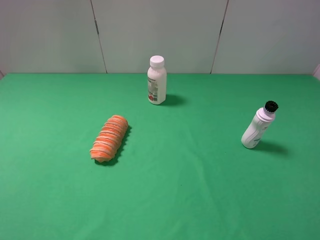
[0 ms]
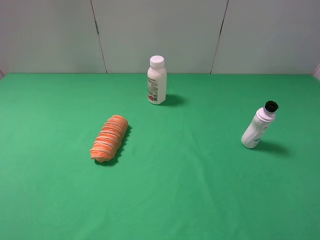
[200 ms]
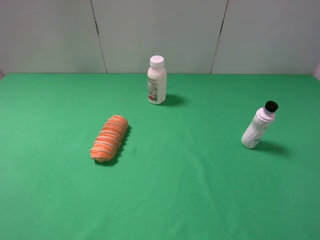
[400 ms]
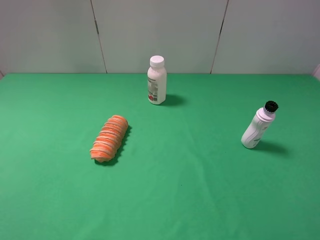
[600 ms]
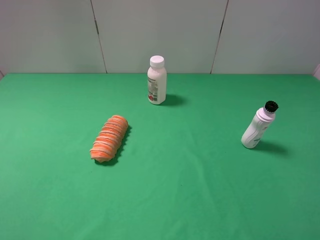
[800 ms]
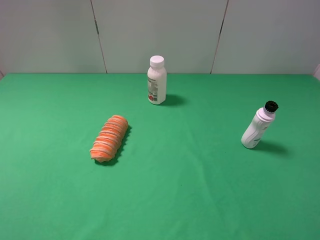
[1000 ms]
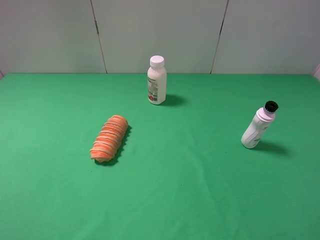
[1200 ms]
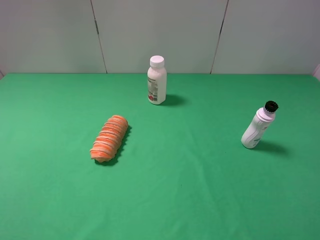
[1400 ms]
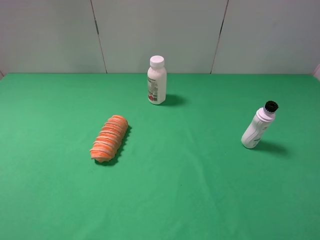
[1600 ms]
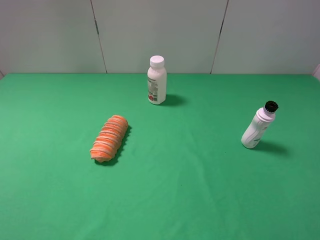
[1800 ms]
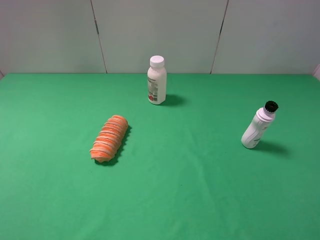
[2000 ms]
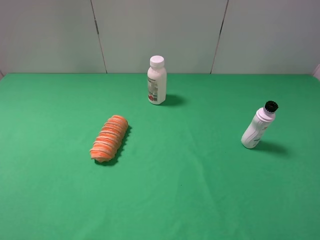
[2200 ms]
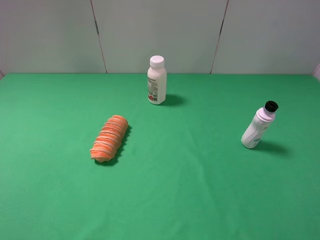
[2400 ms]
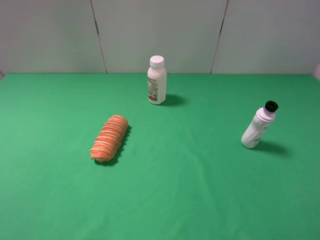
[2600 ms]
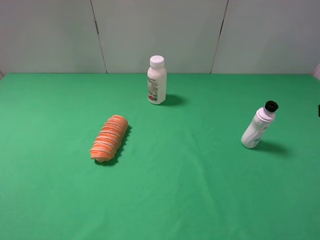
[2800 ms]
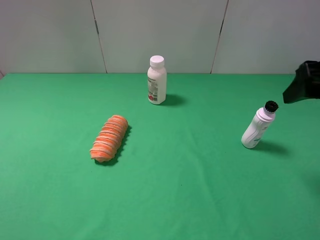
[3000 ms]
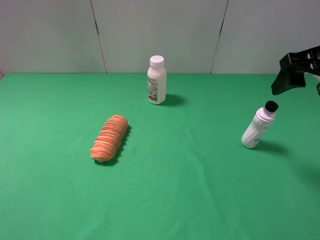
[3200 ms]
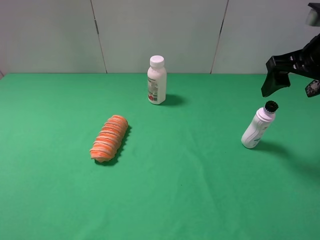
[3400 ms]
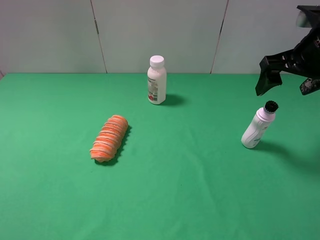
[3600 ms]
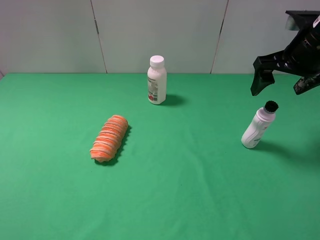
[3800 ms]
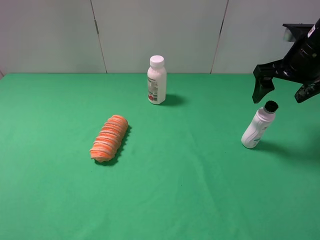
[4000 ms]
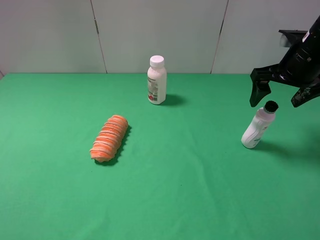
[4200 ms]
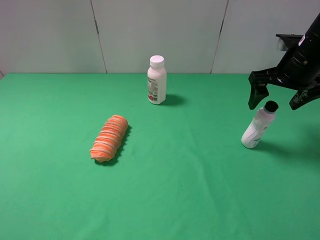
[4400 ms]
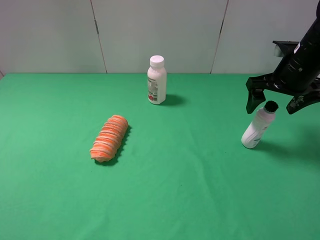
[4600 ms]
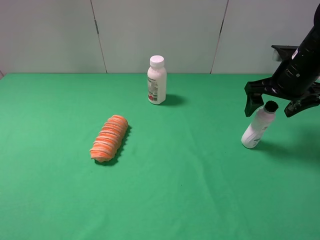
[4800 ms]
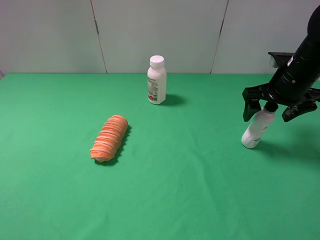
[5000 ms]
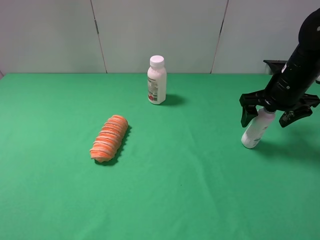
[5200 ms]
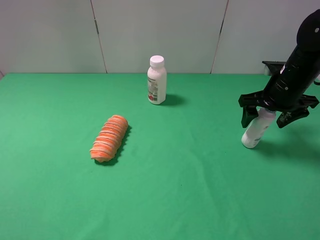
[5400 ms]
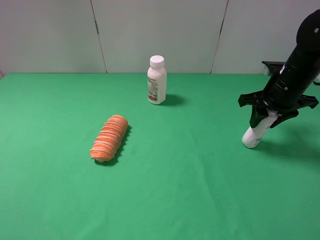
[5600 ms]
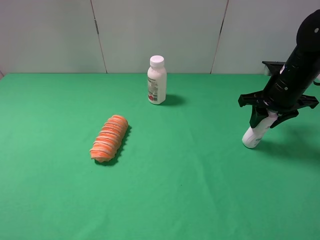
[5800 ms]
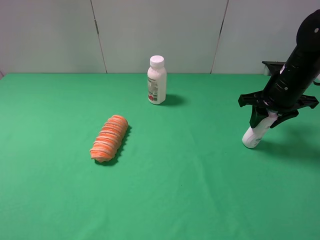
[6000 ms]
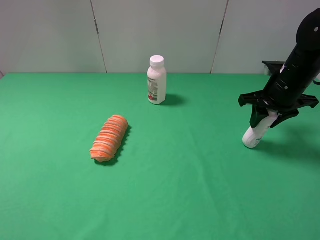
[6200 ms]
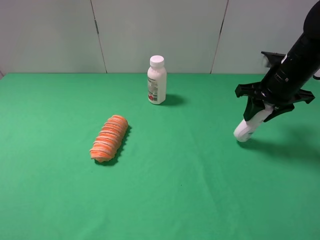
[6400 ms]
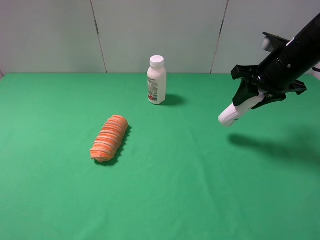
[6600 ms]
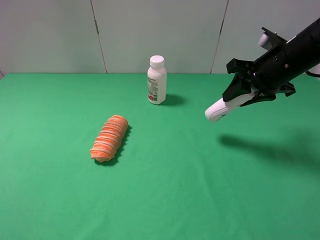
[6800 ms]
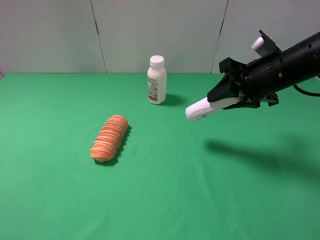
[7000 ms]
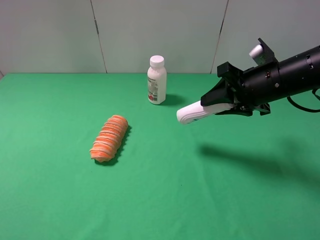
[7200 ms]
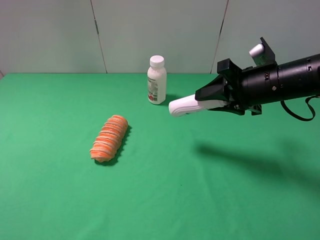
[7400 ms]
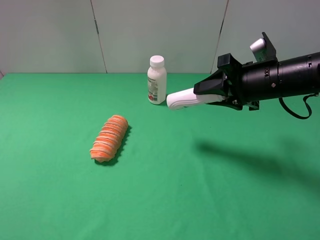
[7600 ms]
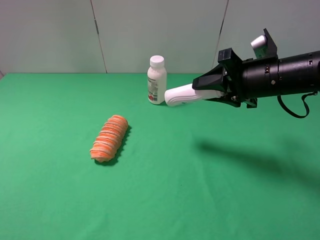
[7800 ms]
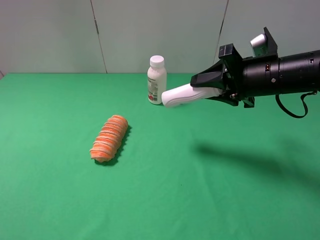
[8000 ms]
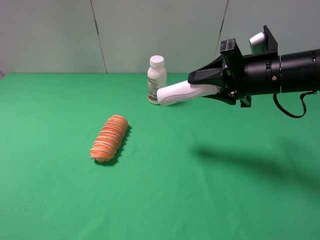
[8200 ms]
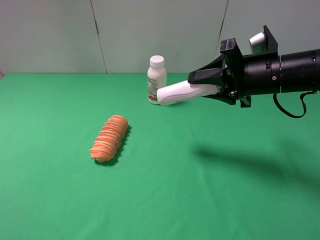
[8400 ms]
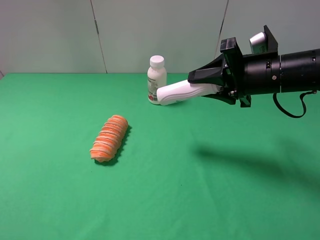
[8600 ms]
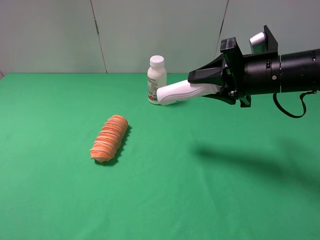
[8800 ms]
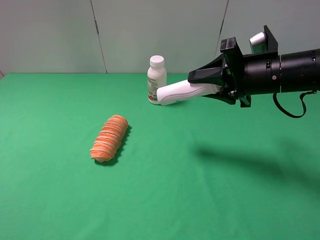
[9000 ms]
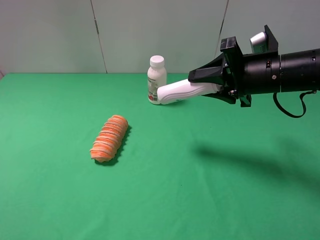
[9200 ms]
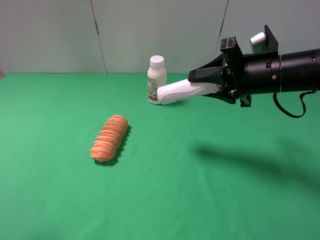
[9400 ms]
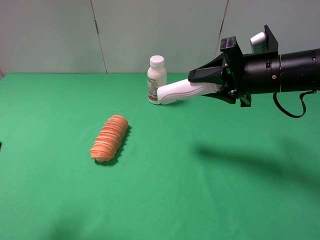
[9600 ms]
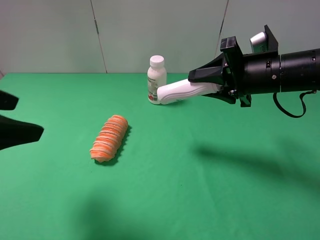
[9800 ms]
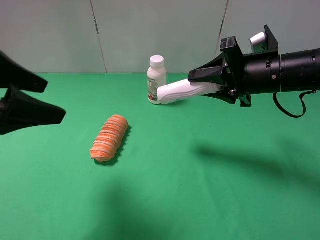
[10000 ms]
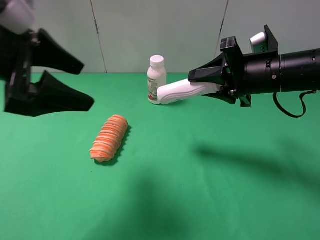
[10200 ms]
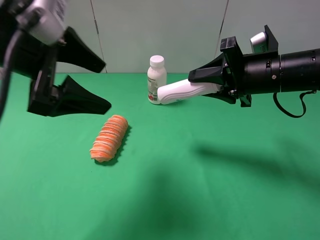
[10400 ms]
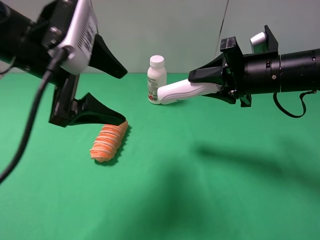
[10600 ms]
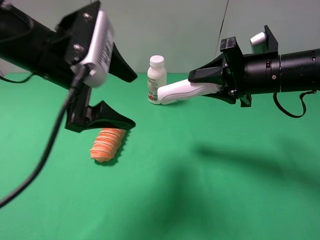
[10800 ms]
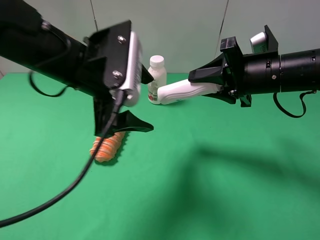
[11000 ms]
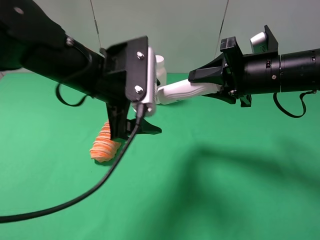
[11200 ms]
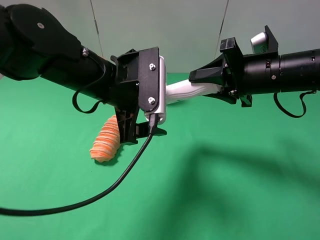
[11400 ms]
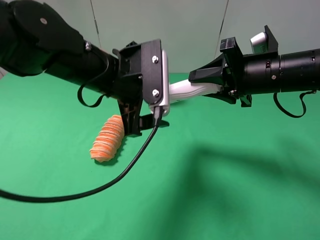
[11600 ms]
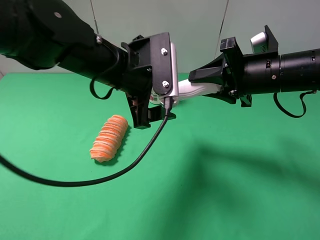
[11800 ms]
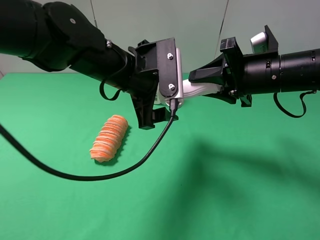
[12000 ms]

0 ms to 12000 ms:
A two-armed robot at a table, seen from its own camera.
Task of the whole recording: use the right gripper to pick up the item and transfer it from the right gripper to the left gripper.
Step, 0 ms to 5600 ms: Use the right gripper to grab the shampoo on the right side of the table.
0 ms to 1600 ms: Neither gripper changes place.
1600 ms to 3000 ms: The right gripper is displaced forward by roughly 20 cm.
3000 ms to 4400 ms: The right gripper moves forward and downward, approximately 15 cm.
4400 ms to 6000 ms: The right gripper shifts approximately 5 cm downward, and closes its fingers.
6000 ms to 7600 ms: The right gripper goes roughly 10 cm to the left and backward.
7600 ms to 9000 ms: The grippers stay close to where they were, moving slightly.
9000 ms to 10400 ms: The left gripper goes some 25 cm forward and to the right.
10400 ms to 12000 ms: The left gripper moves to the right, downward and forward, approximately 15 cm.

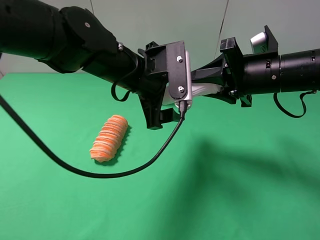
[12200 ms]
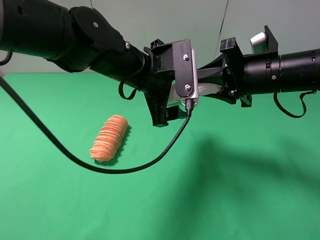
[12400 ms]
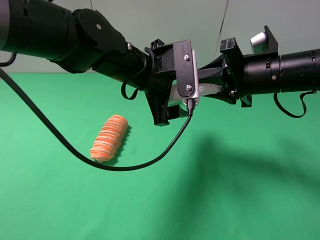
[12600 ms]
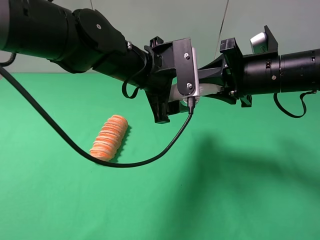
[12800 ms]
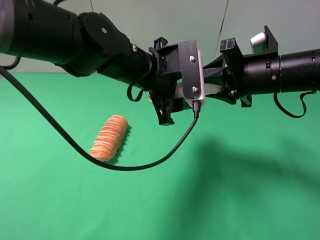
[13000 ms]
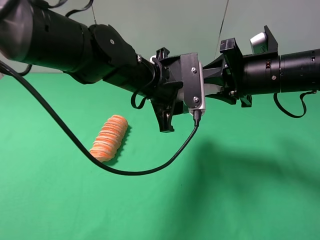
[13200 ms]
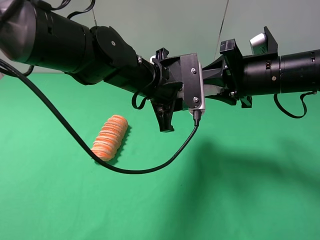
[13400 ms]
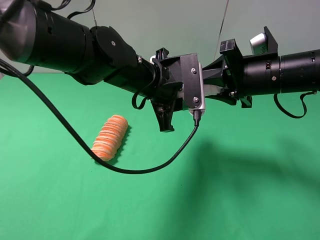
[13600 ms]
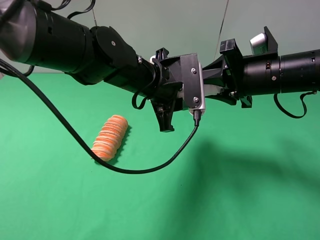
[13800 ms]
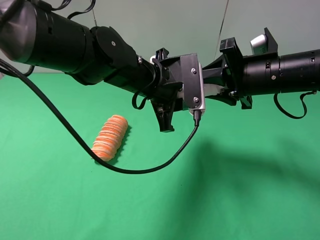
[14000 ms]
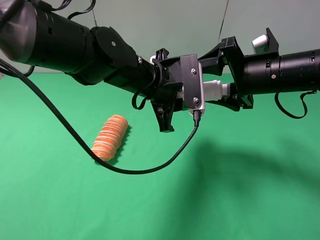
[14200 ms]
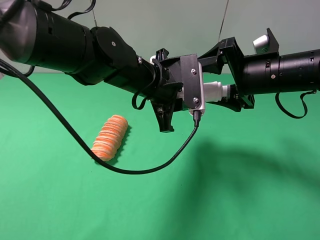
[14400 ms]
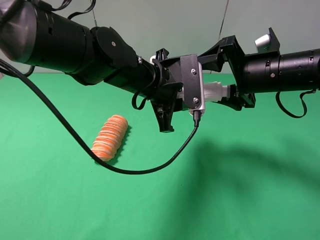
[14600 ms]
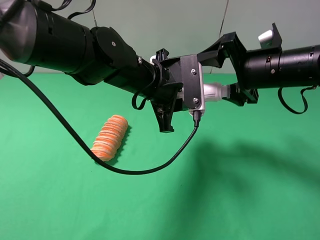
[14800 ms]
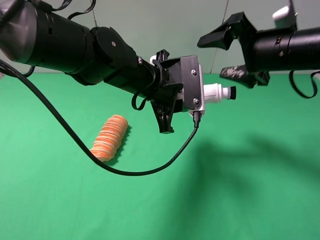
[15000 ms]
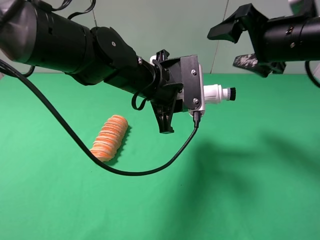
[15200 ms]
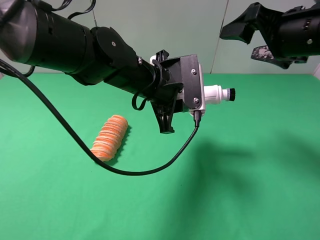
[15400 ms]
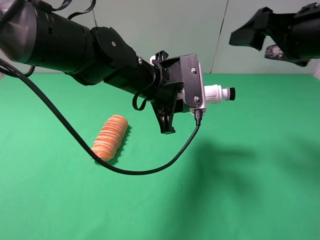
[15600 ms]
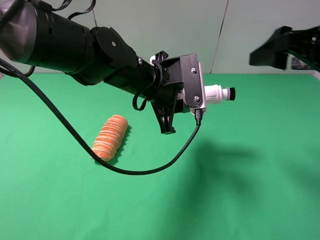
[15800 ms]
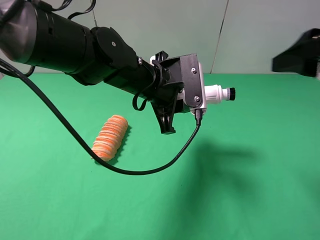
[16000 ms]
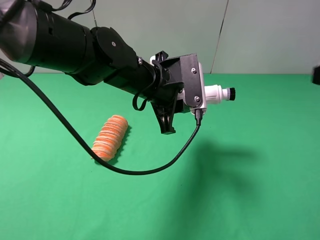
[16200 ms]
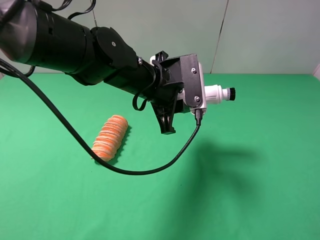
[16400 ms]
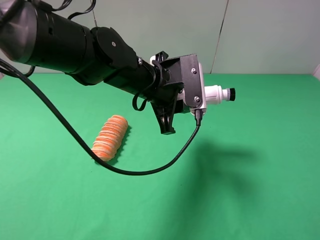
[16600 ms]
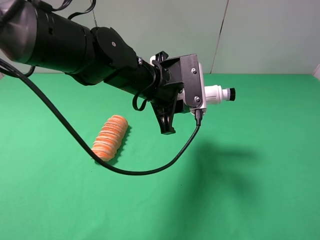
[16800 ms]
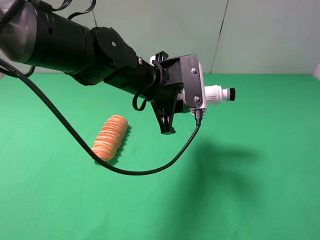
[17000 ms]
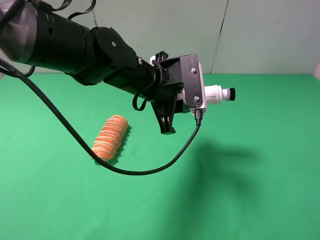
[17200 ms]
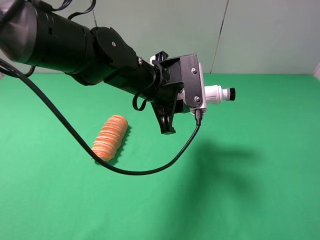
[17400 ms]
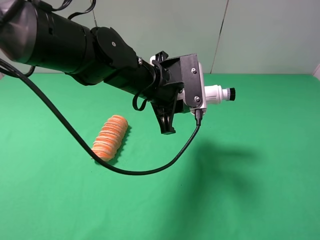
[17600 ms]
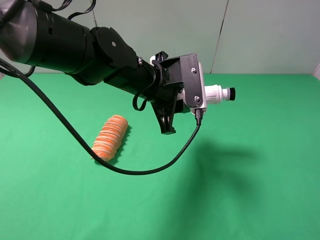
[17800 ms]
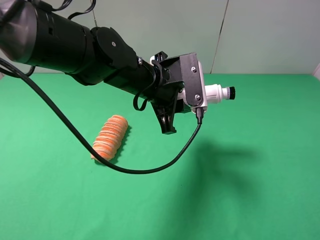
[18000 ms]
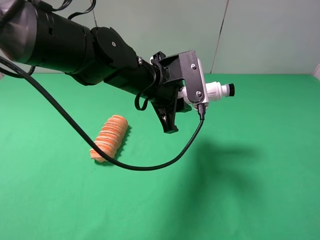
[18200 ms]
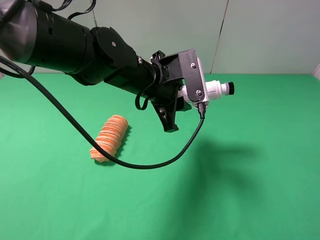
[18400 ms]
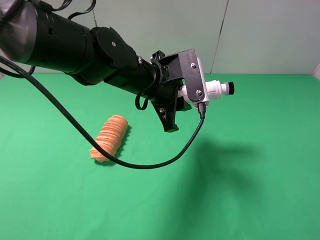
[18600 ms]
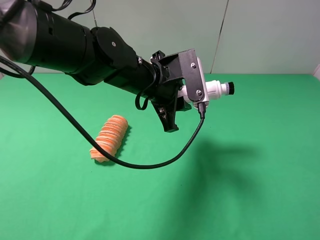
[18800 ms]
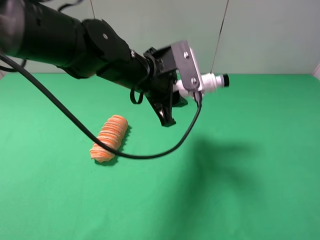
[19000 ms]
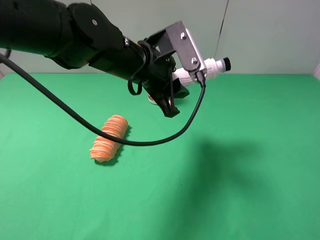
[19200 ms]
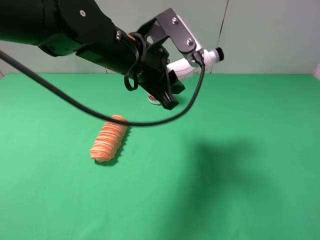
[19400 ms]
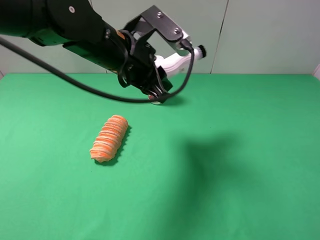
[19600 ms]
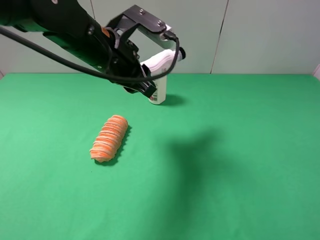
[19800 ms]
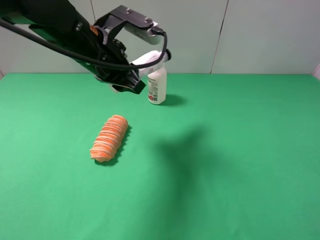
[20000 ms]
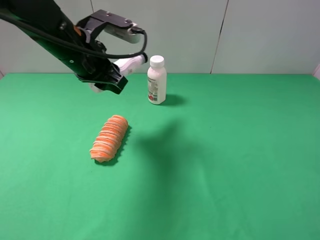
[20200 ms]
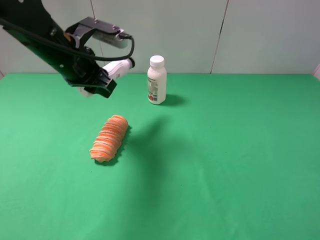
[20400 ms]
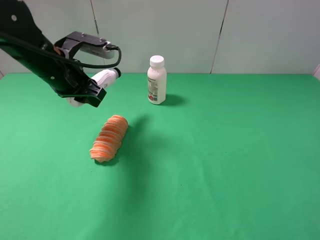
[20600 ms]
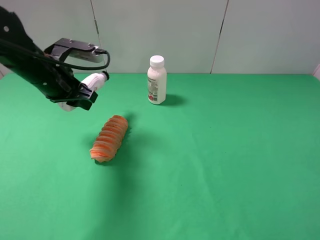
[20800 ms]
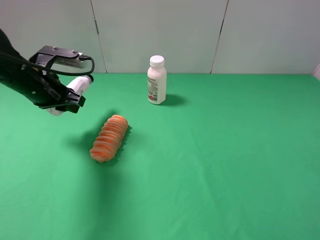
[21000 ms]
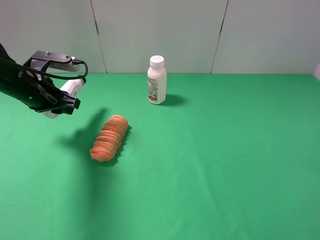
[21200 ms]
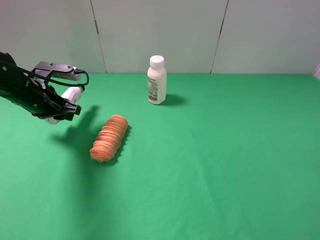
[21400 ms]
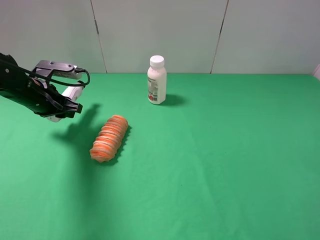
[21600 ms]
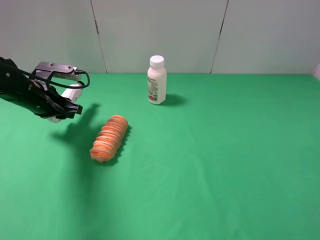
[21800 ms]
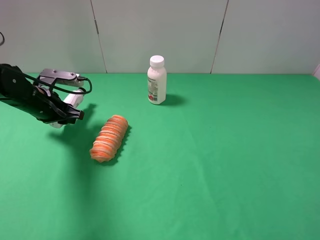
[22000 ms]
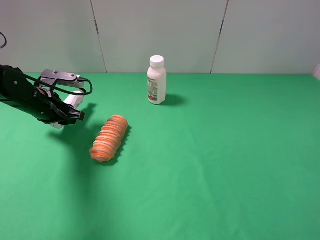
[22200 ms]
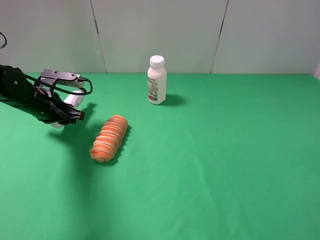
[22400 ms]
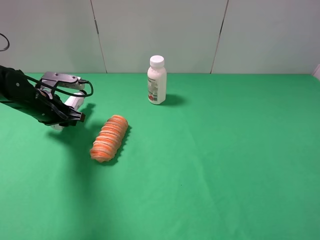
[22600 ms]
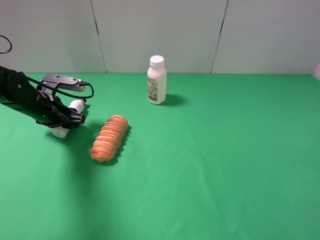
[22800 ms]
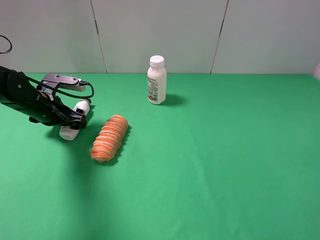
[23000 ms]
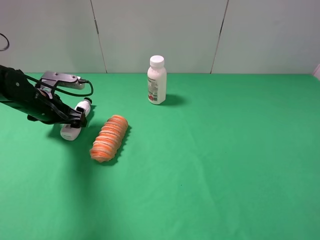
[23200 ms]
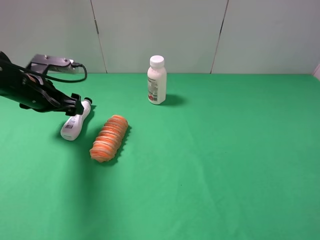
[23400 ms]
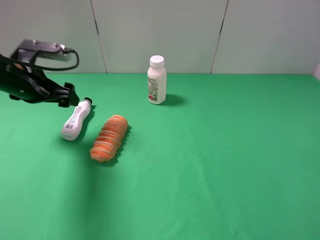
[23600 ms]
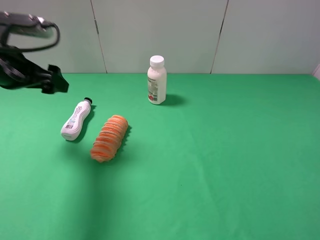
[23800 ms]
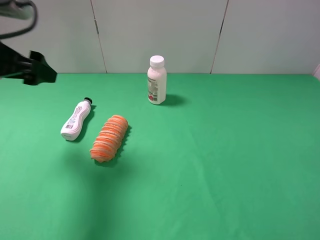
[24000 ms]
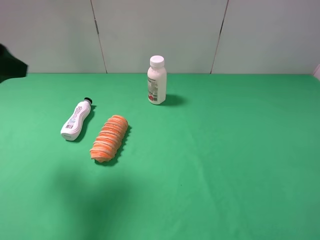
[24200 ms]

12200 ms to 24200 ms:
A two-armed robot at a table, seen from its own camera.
Task of the whole recording: use the right gripper to pick up the item and transfer it from the right gripper to the left gripper.
Step, 12200 ms to 14800 ms: Pass the shampoo to the left gripper.
Step, 15000 ms to 23000 ms: The left gripper places shampoo on the left side of the table.
12200 ms to 13800 ms: The left gripper closes up.
13800 ms to 15200 ms: The right gripper is displaced upward by approximately 5 cm, and opens up.
15200 ms to 16600 ms: The right gripper is displaced backward by approximately 25 cm.
16600 ms to 18200 ms: There are only small adjustments of the grippers.
18200 ms to 19800 ms: The left gripper moves to the left and upward, some 10 cm.
19800 ms to 21200 ms: The left gripper goes some 20 cm to the left and downward.
21200 ms to 22600 ms: The left gripper goes approximately 5 cm downward.
22600 ms to 24200 ms: The left gripper is displaced upward and backward by approximately 25 cm, and opens.
